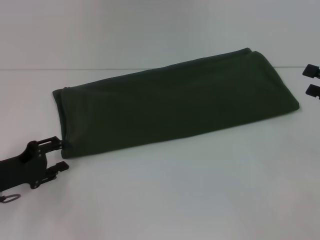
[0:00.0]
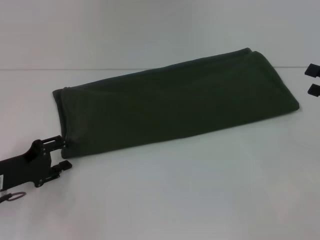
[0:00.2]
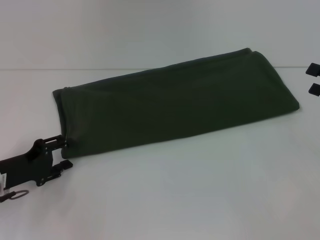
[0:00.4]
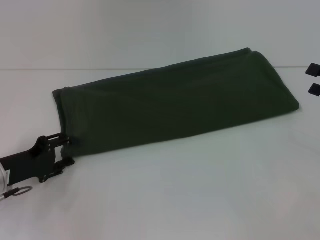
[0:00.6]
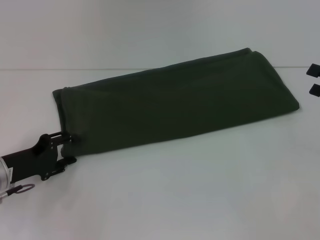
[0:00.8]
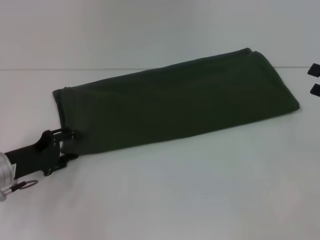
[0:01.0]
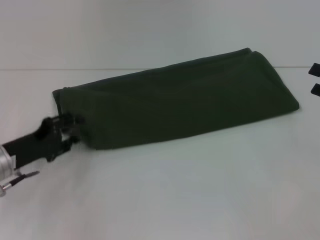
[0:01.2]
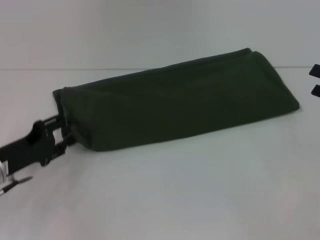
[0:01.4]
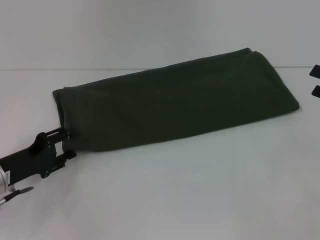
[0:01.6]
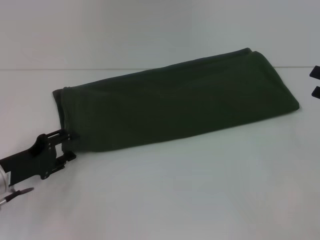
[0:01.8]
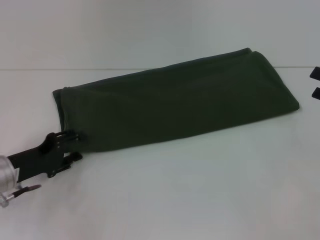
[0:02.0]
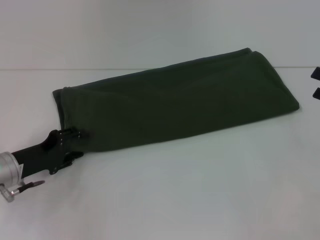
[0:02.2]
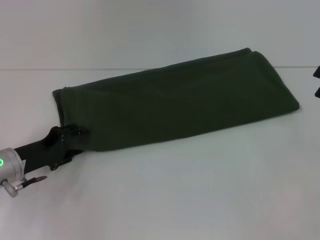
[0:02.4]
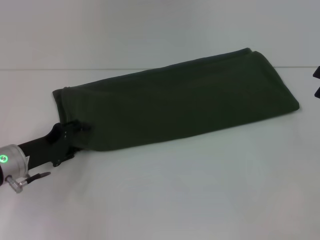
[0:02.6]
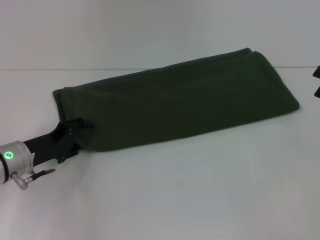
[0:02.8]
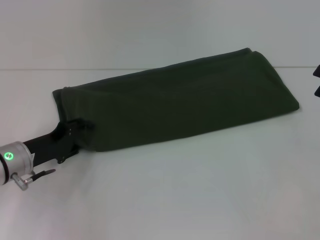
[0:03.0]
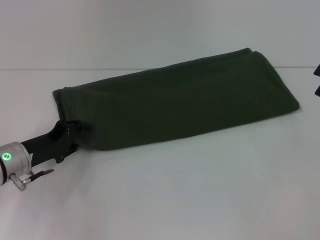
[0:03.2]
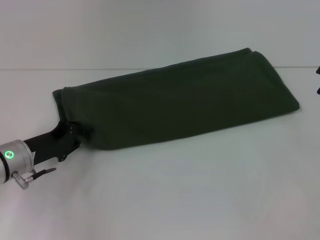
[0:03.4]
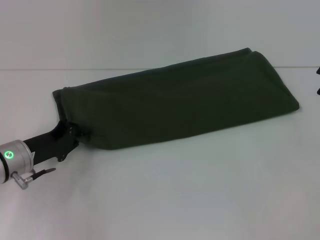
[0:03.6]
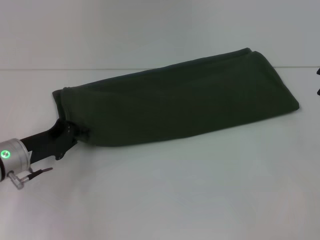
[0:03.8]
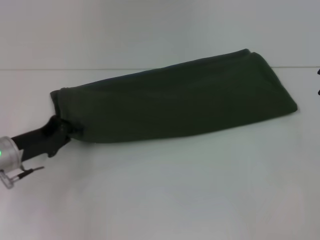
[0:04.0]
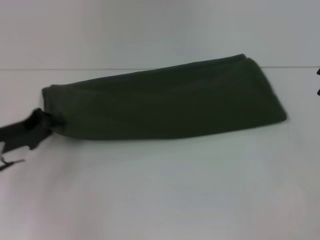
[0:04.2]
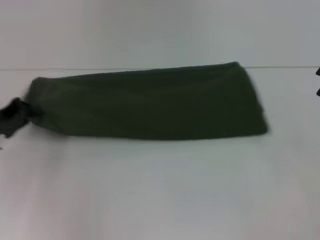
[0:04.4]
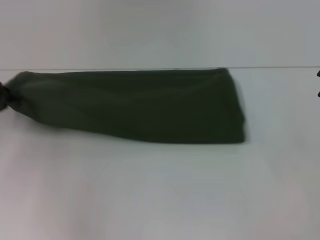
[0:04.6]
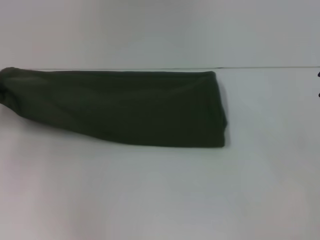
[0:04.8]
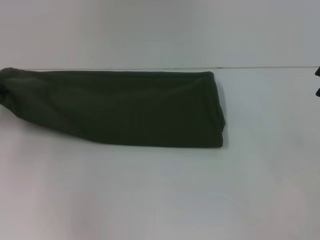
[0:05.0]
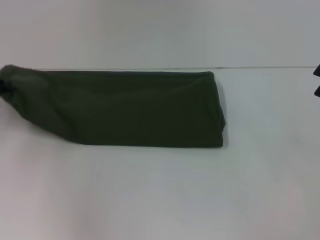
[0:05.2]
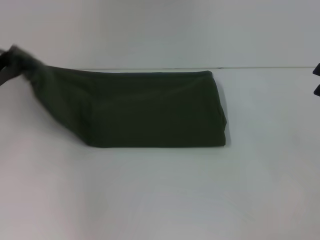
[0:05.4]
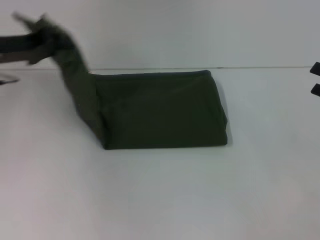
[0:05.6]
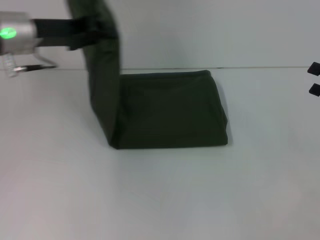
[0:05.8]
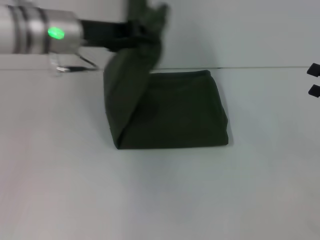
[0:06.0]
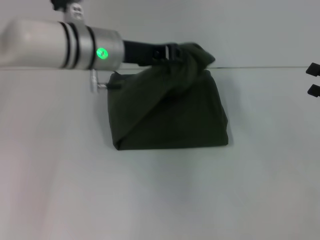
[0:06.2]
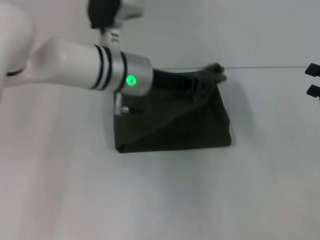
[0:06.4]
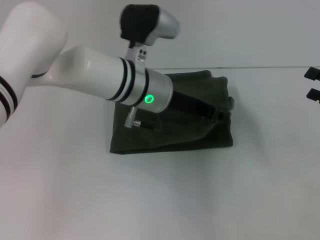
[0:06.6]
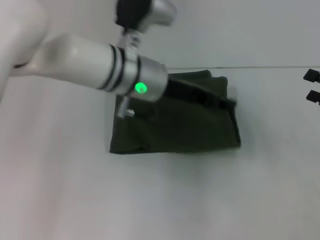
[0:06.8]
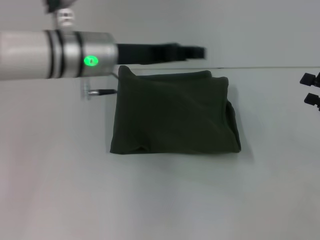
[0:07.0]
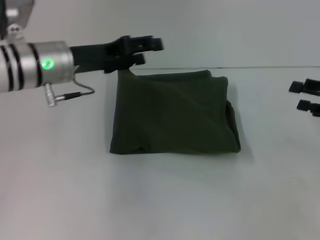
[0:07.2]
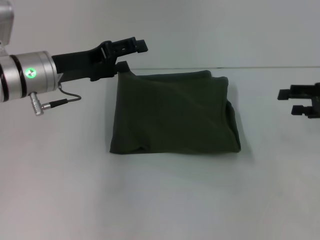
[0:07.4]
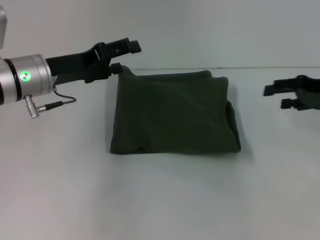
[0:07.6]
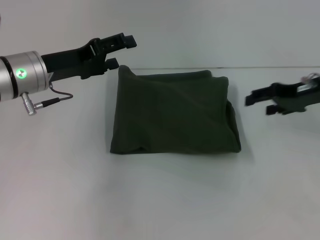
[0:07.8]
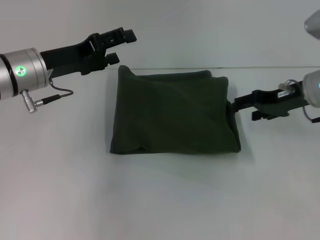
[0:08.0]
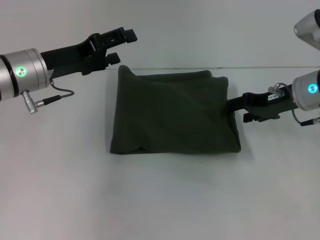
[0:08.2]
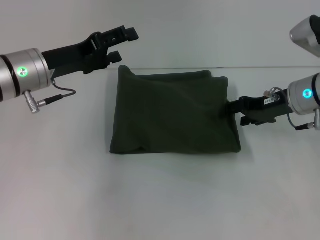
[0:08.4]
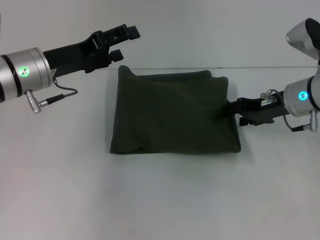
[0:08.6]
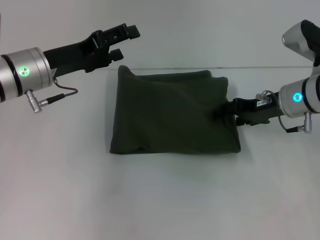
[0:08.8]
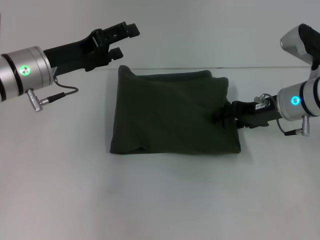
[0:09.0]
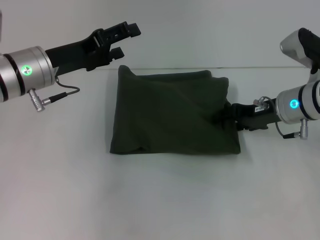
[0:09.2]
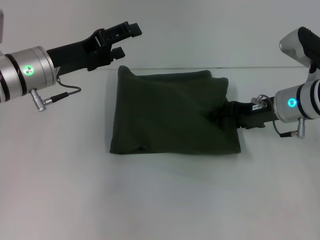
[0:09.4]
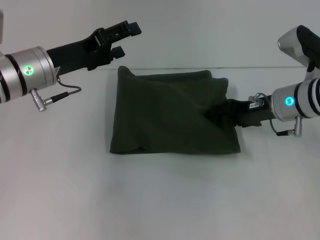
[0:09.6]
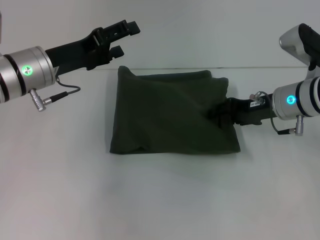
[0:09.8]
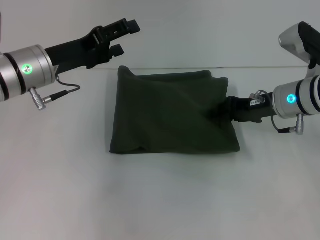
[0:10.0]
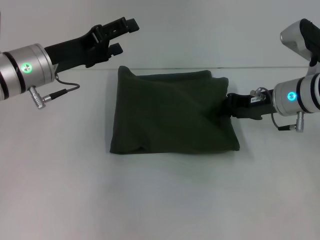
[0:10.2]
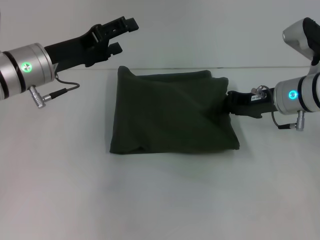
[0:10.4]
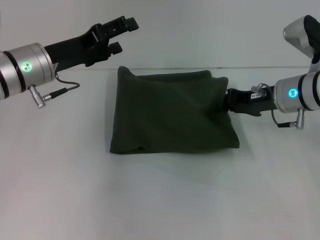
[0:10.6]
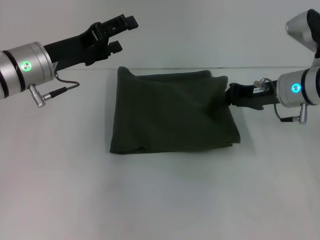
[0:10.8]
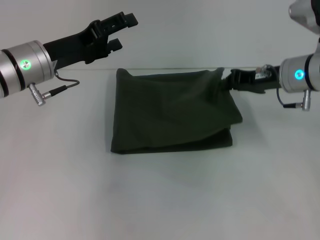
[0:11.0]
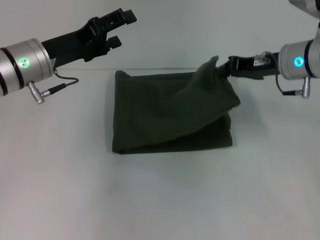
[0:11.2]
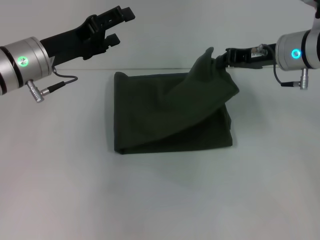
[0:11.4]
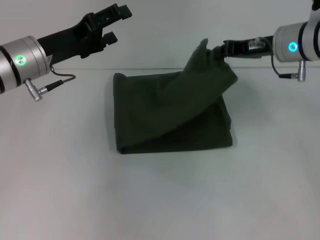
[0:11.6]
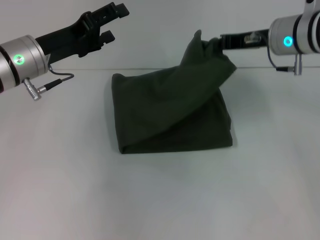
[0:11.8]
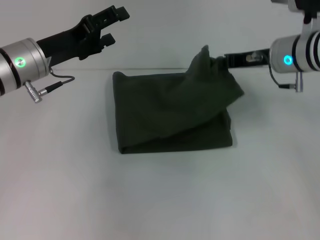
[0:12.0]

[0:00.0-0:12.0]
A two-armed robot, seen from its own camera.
Step, 0:00.0 to 0:07.0: Fold the clothes with your left hand.
0:00.0 to 0:01.6: The grippers move only a little.
0:01.6 to 0:03.0: There are only small adjustments of the grippers.
0:03.0 to 0:04.4: The left gripper shifts about 5 cm to the left, and closes its fingers.
0:04.4 to 0:06.0: The left gripper is displaced to the right, upward and forward by about 25 cm.
0:06.0 to 0:07.6: The right gripper goes about 5 cm forward; the left gripper is displaced downward by about 5 cm, moves some 10 cm to the right and comes back, and opens up.
0:07.6 to 0:09.0: The right gripper heads to the left, covering roughly 10 cm.
0:09.0 to 0:10.4: The right gripper closes up.
0:10.4 to 0:12.0: The right gripper changes place by approximately 5 cm.

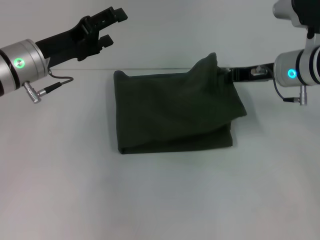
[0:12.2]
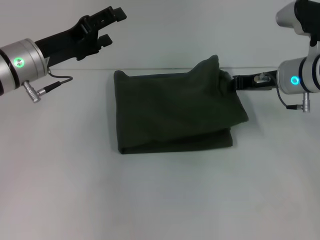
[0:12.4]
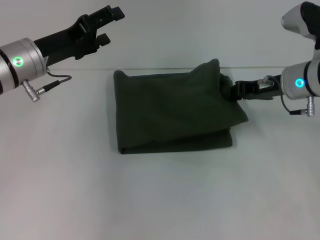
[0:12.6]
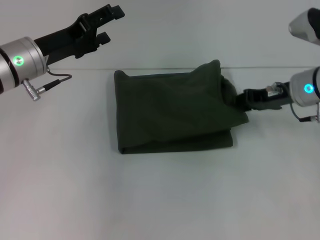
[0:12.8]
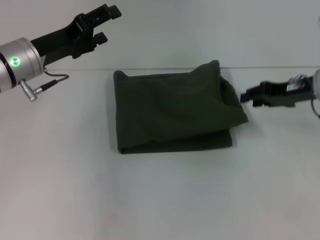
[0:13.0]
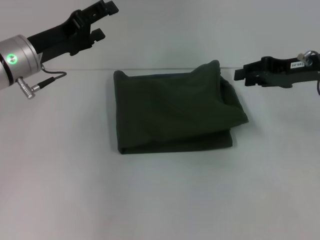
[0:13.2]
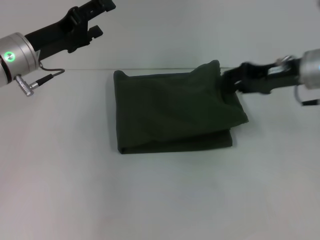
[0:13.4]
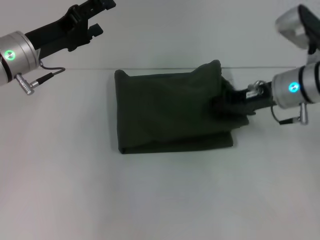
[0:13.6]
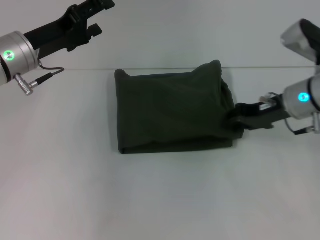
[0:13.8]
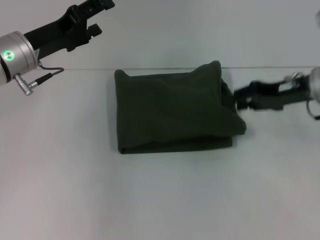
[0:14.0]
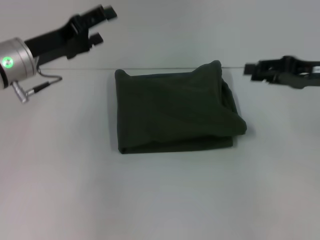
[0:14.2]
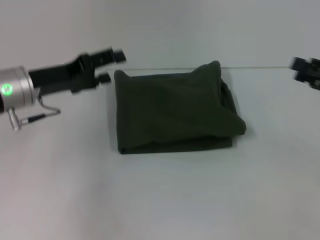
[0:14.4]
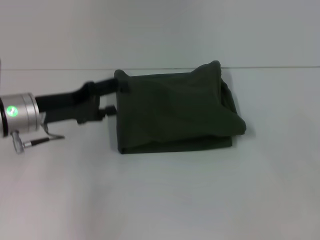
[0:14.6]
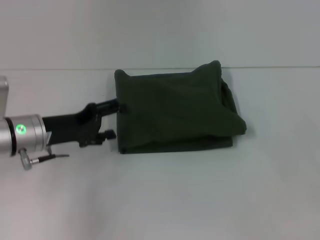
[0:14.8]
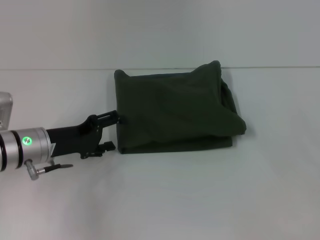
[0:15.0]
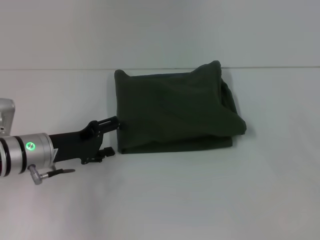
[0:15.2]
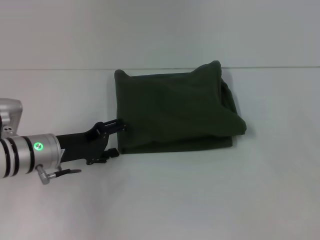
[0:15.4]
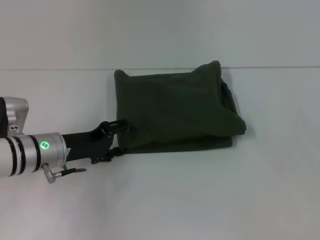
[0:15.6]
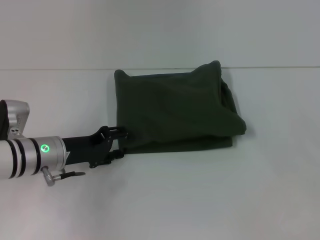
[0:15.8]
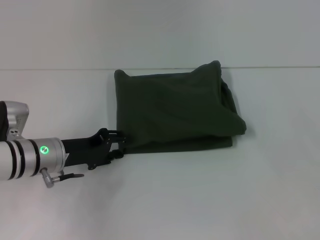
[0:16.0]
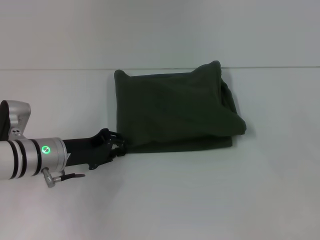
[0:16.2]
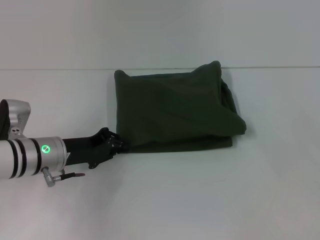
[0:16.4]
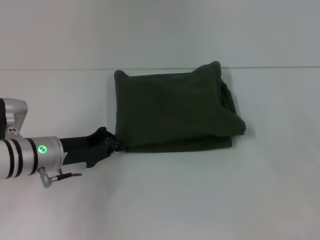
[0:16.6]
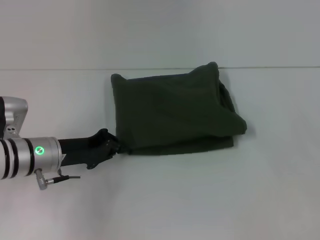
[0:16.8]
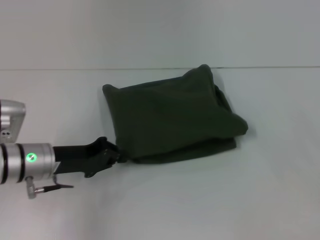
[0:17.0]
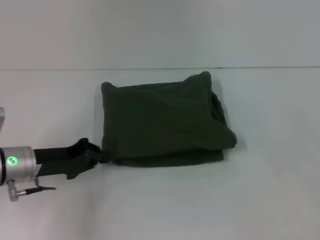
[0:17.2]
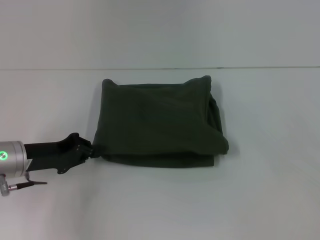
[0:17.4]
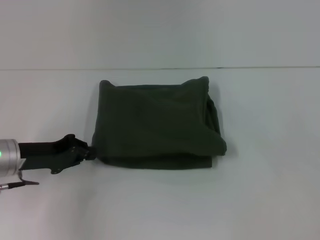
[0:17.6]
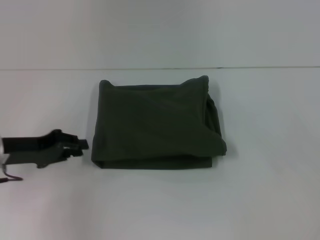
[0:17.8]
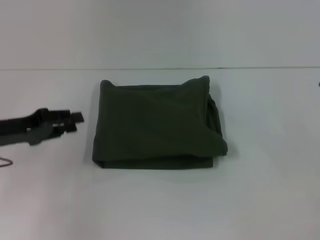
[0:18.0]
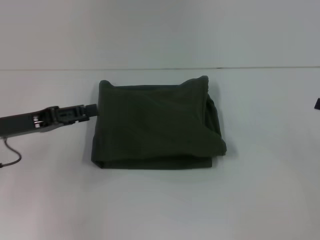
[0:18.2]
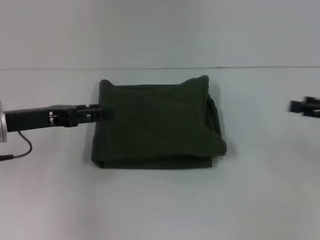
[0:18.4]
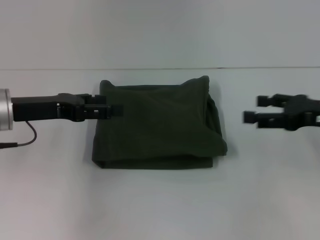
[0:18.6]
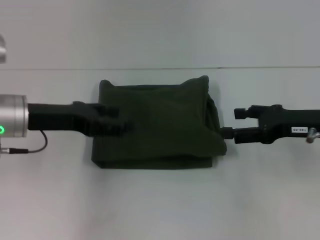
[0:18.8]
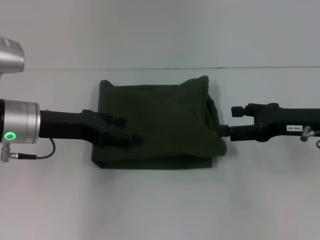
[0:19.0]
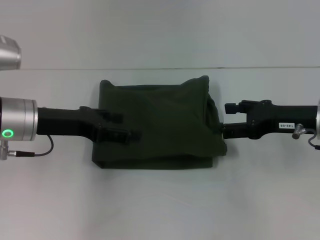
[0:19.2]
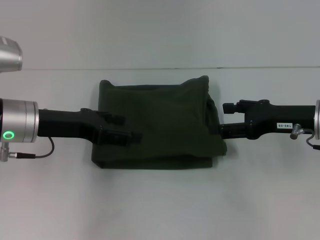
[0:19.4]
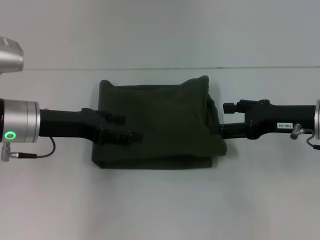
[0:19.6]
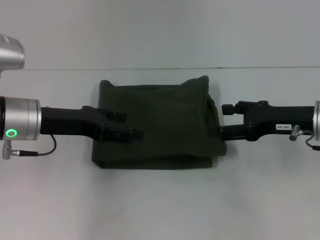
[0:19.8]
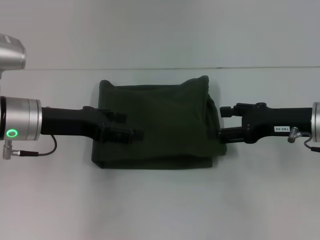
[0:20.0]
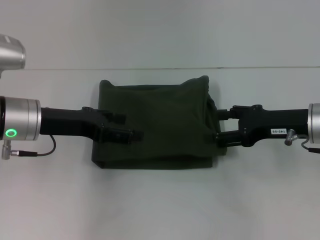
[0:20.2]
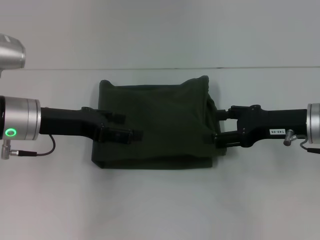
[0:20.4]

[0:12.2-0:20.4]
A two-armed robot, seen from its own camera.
0:12.2 to 0:13.8: The right gripper opens.
0:13.8 to 0:15.4: The left gripper is displaced downward and backward by about 15 cm; the right gripper moves to the right and backward, some 20 cm, and opens.
0:15.4 to 0:17.2: The left gripper closes.
0:17.2 to 0:18.8: The left gripper travels upward by about 10 cm, and opens its fingers. The right gripper heads to the left, covering some 10 cm.
0:18.8 to 0:20.4: The grippers make only small movements.

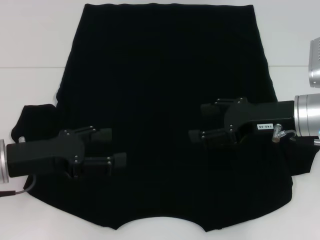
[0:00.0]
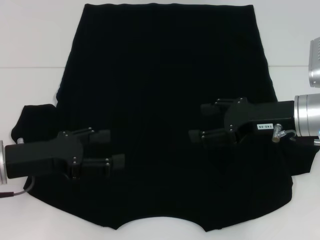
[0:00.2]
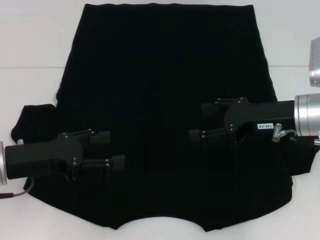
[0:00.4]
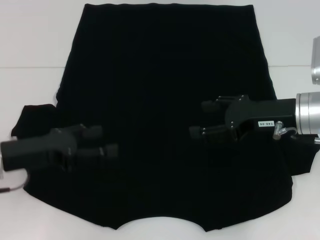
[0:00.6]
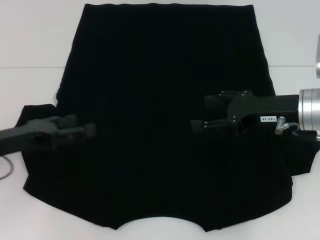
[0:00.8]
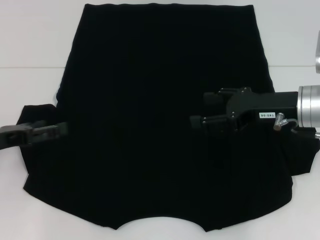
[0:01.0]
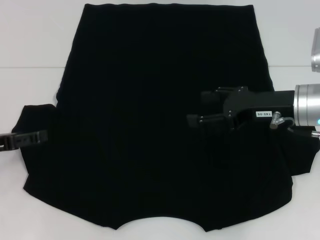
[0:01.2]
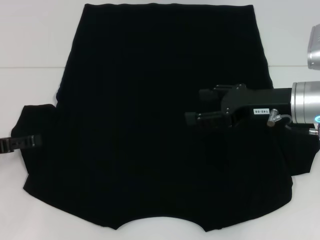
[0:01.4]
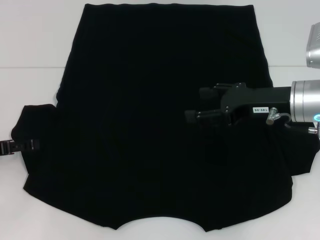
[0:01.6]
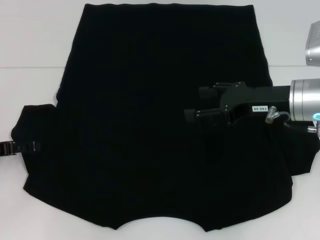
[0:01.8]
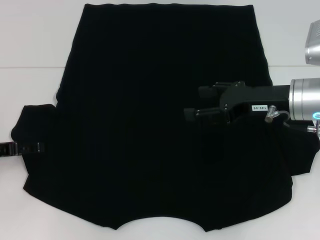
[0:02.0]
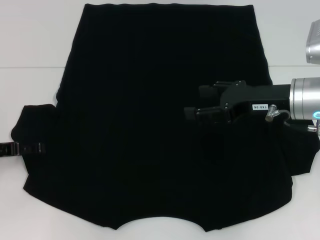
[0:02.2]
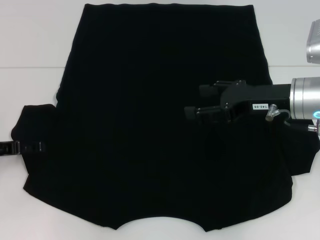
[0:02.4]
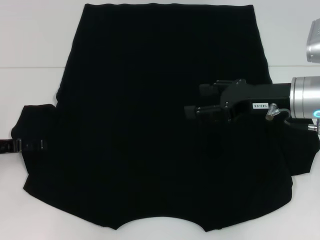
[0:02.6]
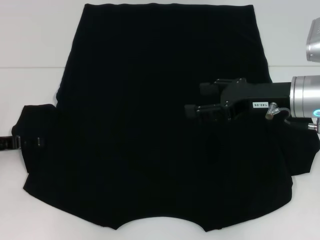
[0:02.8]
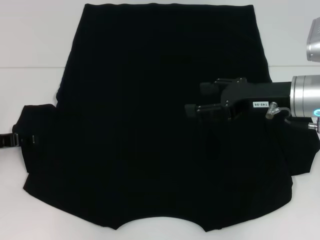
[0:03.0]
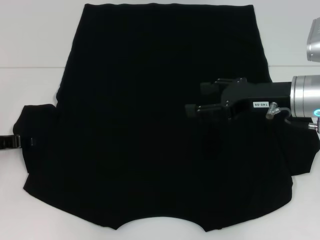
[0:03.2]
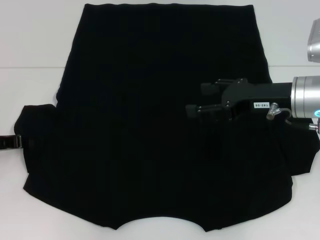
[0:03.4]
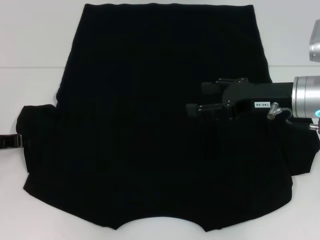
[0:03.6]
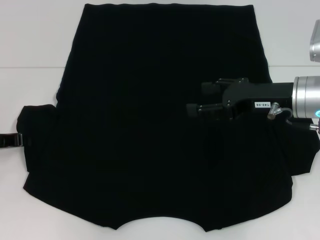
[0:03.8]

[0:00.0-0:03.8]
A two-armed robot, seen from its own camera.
0:00.0 to 0:01.2: The left gripper is displaced to the left by some 10 cm.
0:01.2 to 0:02.6: The grippers make only small movements.
0:02.6 to 0:03.8: The left gripper closes its fingers.
